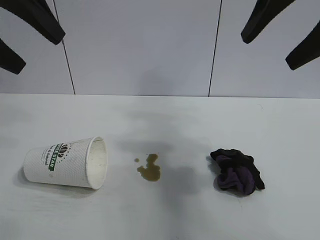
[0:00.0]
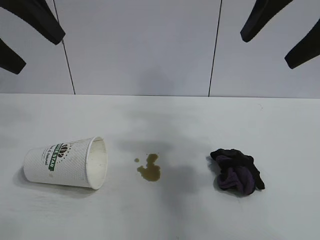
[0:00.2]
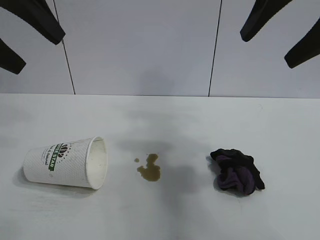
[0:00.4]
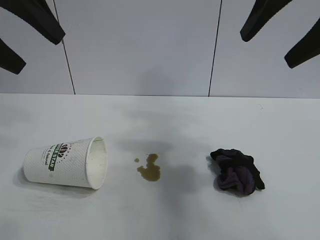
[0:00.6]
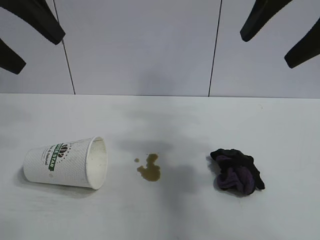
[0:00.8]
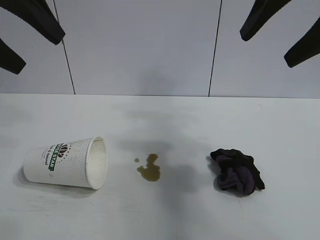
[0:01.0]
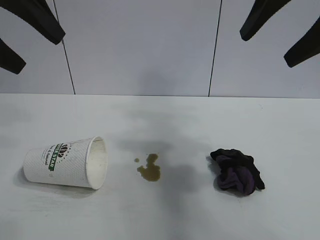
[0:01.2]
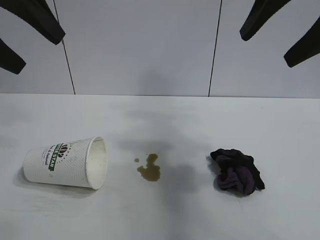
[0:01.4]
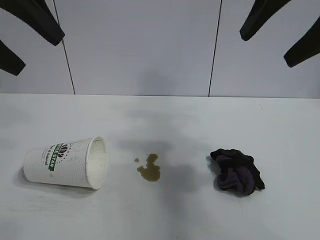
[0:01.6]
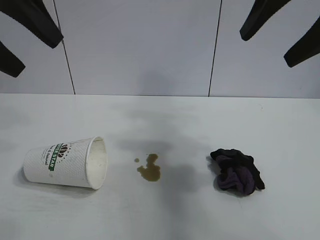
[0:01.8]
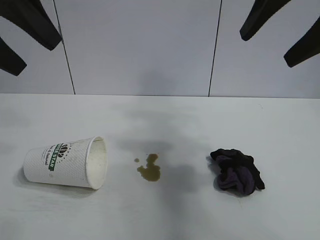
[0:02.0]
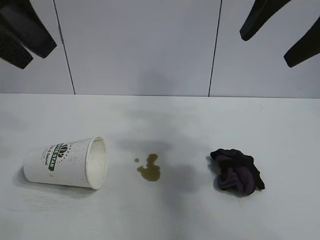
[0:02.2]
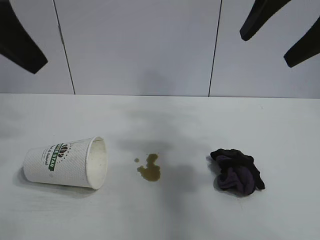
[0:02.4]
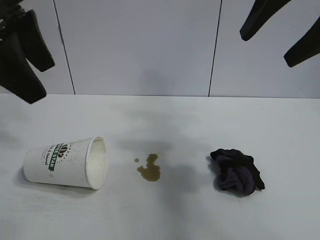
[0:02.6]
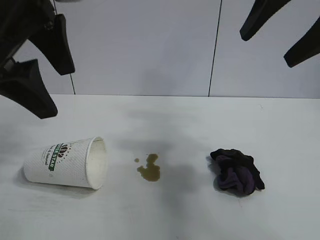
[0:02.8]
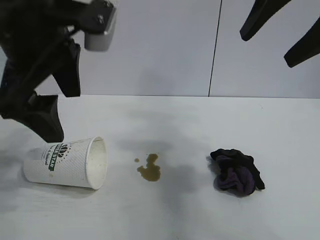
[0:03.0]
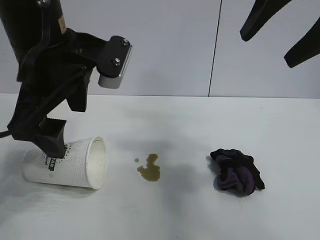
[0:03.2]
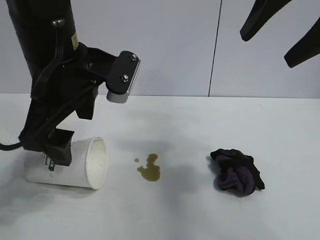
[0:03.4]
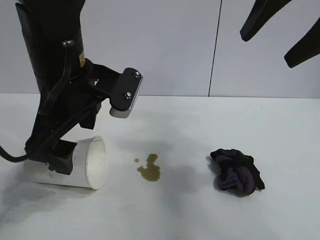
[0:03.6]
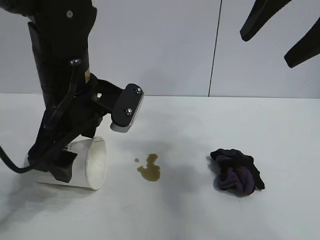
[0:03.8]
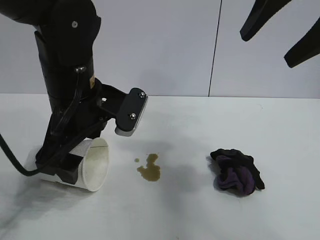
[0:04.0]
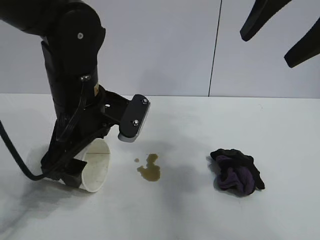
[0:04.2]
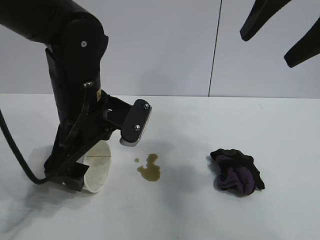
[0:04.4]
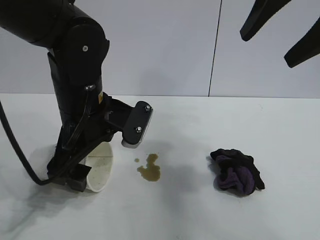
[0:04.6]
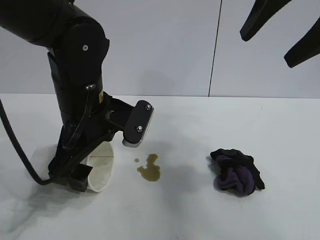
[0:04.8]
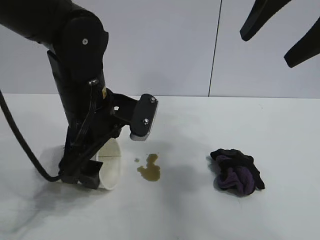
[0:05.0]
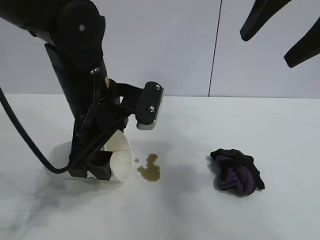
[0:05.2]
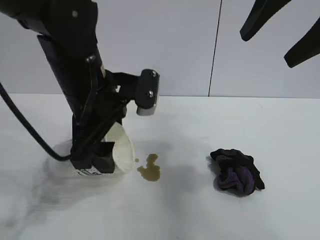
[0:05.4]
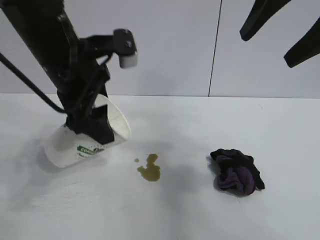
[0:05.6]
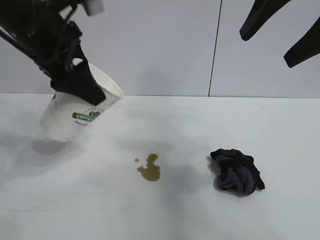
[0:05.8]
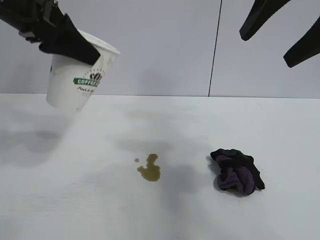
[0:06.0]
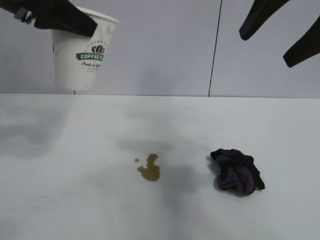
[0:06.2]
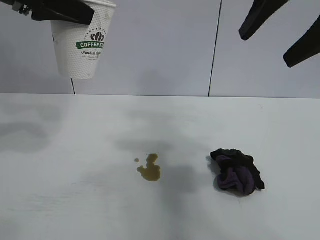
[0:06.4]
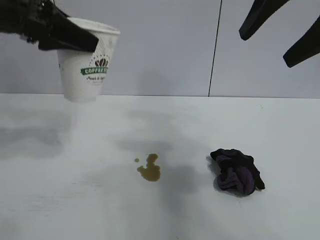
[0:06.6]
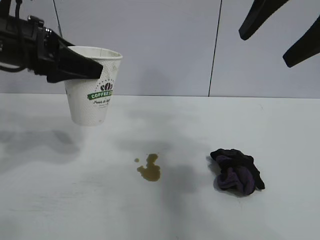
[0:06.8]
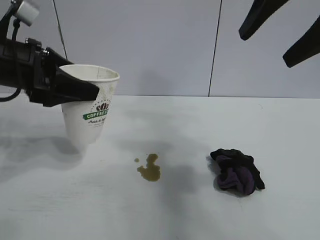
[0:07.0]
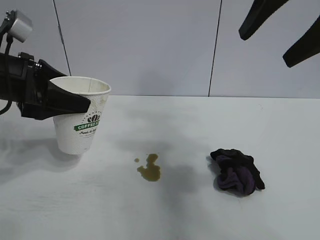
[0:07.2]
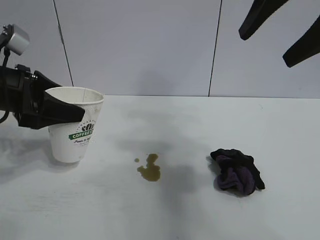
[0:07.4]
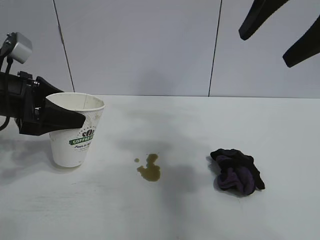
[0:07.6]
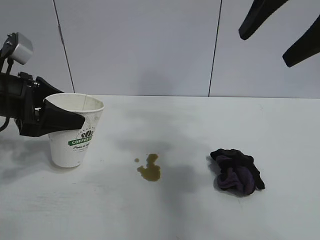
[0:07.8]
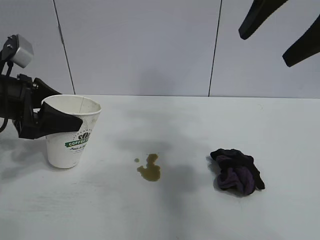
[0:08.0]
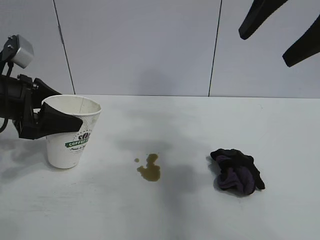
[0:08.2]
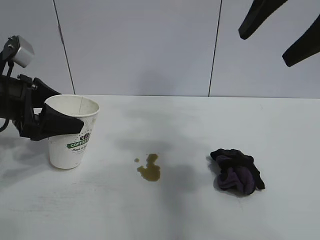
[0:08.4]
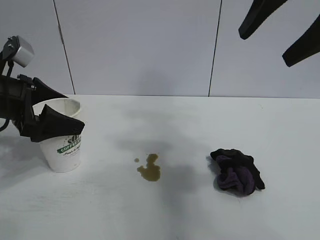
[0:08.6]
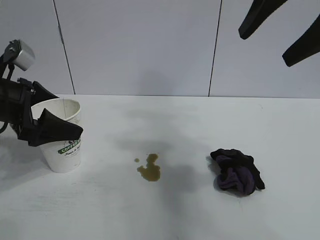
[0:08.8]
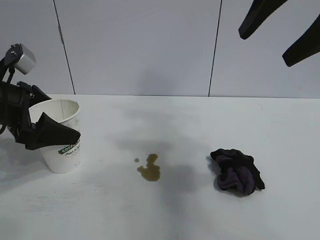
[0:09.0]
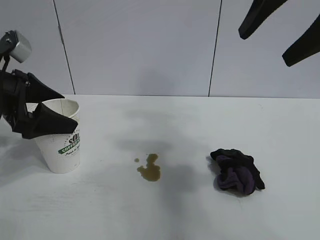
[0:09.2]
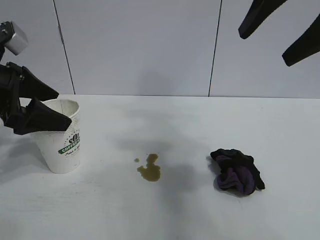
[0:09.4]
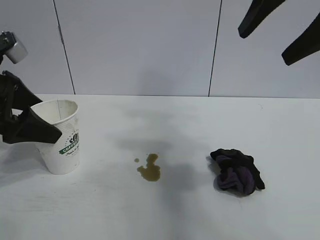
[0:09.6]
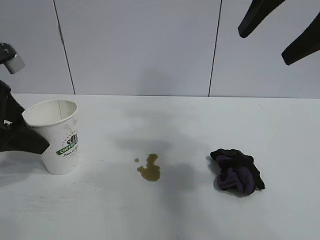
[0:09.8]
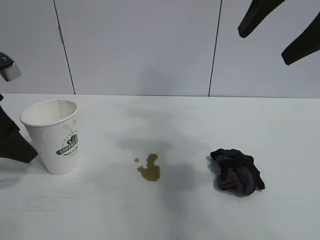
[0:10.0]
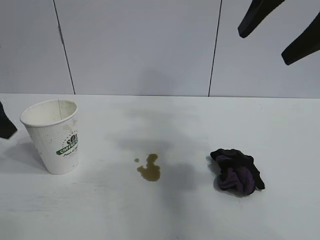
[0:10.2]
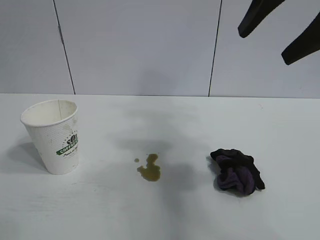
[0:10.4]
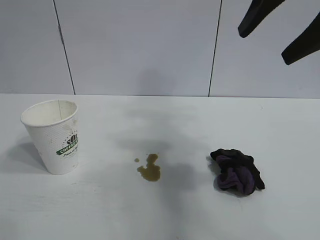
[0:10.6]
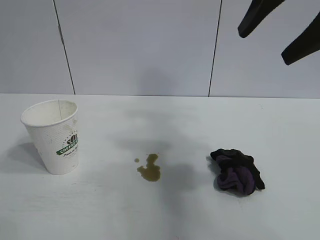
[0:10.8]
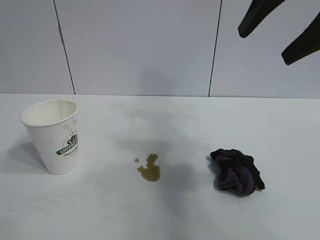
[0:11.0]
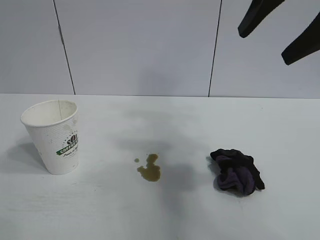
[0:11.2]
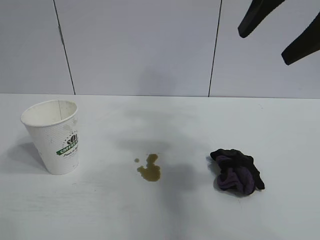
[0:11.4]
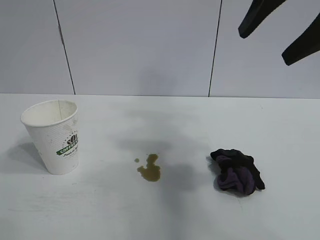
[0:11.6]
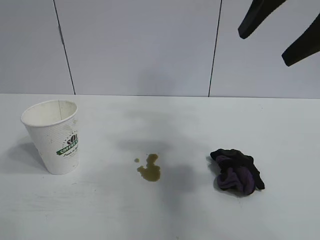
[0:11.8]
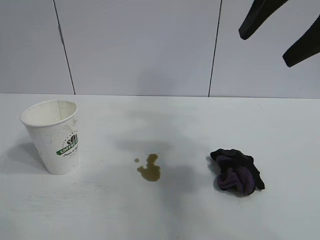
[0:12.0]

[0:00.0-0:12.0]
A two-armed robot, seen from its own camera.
Task of the whole recording: the left gripper pick up the fallen cup and place it upright, the right gripper grasp the black rag and wipe the stain on the table, the right gripper put the black rag back in its original position.
Step, 0:01.6 to 0:04.6: Grasp the paper cup with left gripper.
Step, 0:05.0 to 0:08.6: Stand the paper cup upright with left gripper.

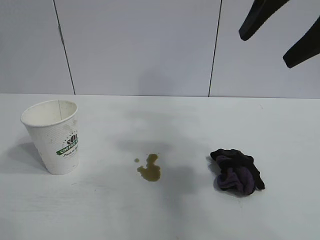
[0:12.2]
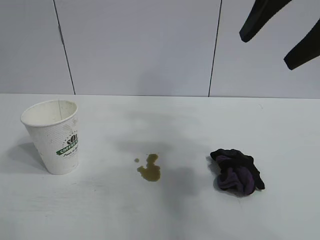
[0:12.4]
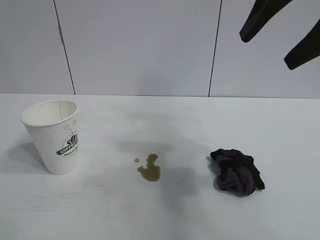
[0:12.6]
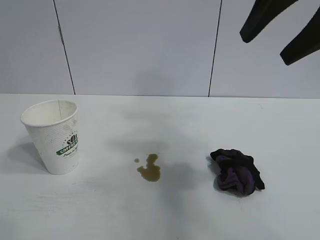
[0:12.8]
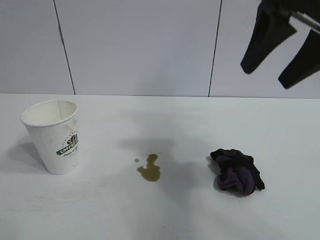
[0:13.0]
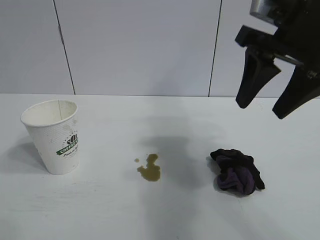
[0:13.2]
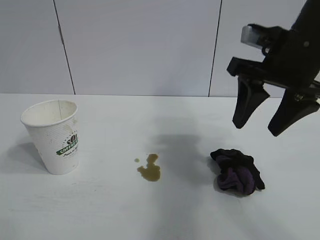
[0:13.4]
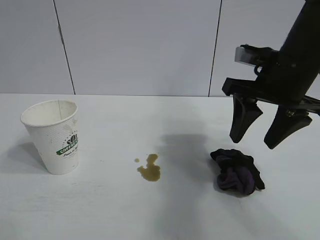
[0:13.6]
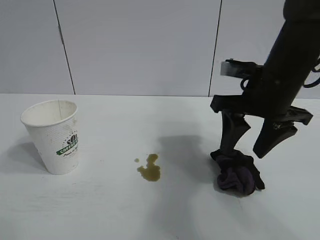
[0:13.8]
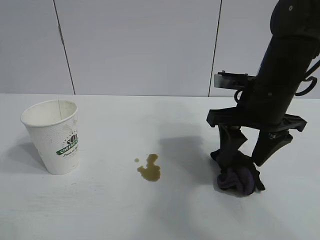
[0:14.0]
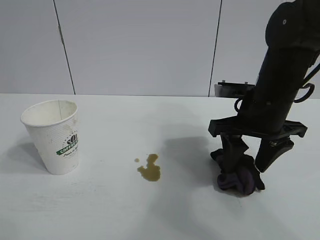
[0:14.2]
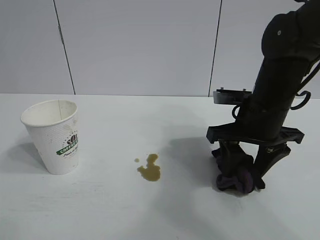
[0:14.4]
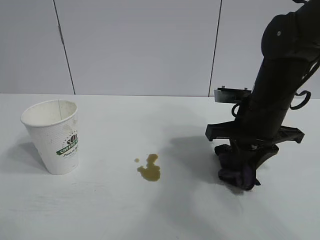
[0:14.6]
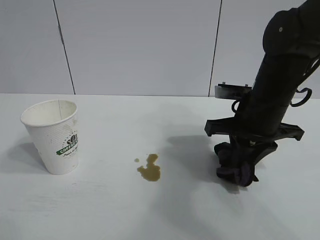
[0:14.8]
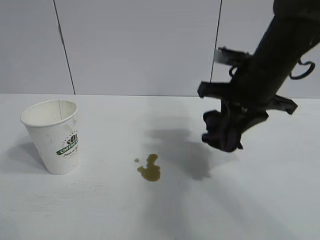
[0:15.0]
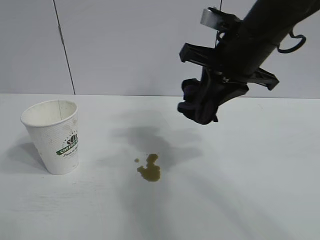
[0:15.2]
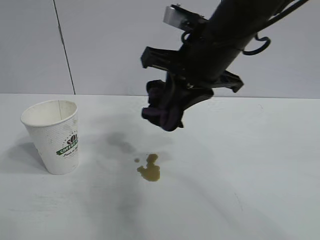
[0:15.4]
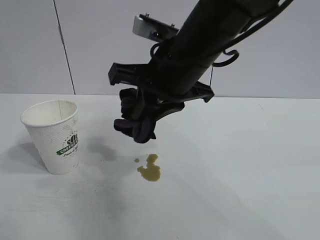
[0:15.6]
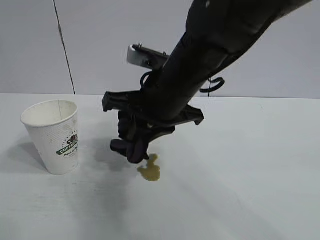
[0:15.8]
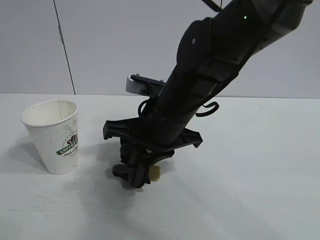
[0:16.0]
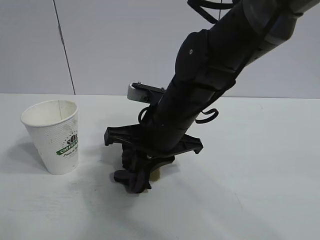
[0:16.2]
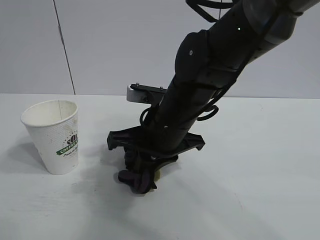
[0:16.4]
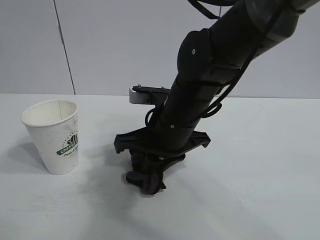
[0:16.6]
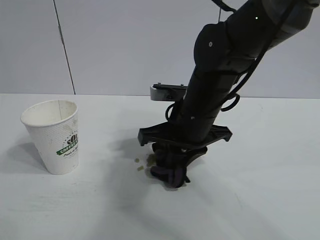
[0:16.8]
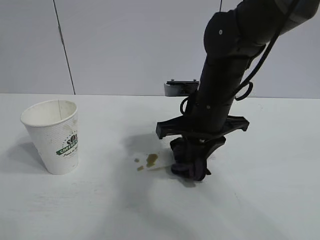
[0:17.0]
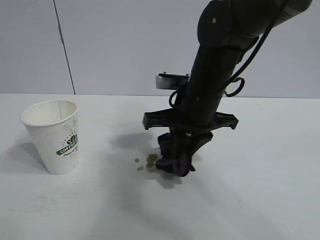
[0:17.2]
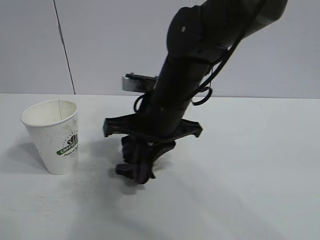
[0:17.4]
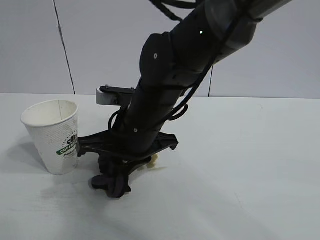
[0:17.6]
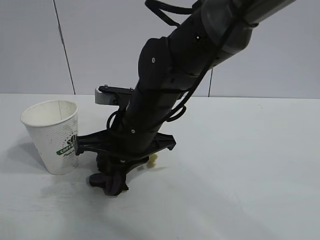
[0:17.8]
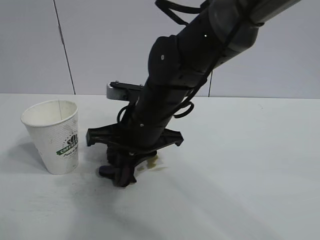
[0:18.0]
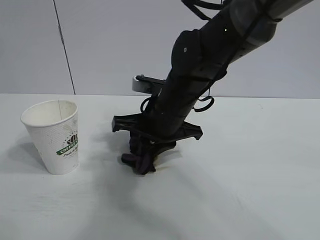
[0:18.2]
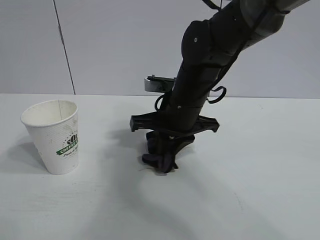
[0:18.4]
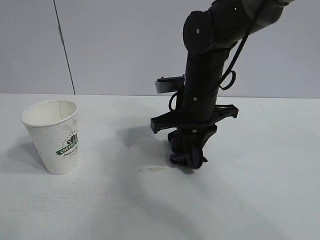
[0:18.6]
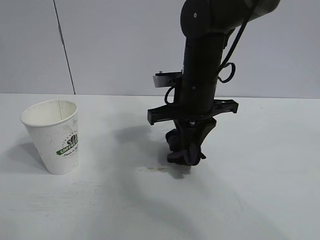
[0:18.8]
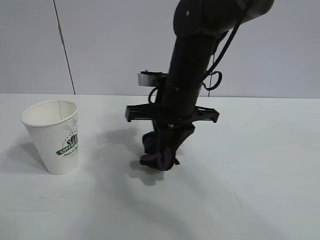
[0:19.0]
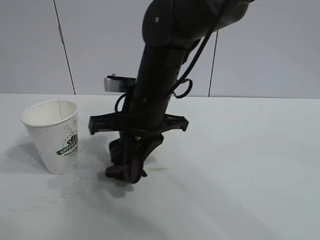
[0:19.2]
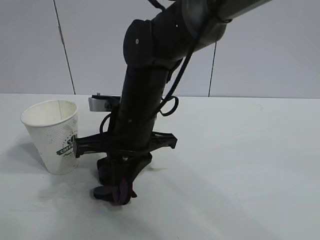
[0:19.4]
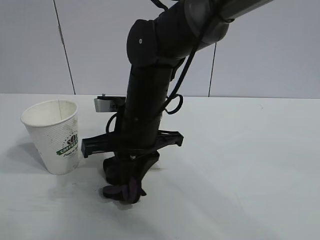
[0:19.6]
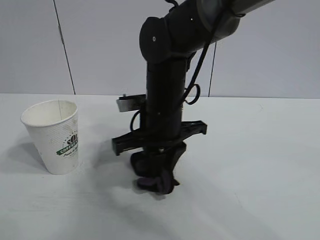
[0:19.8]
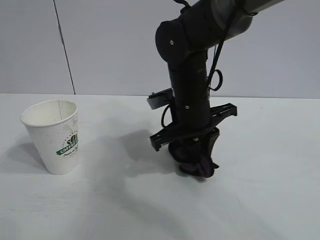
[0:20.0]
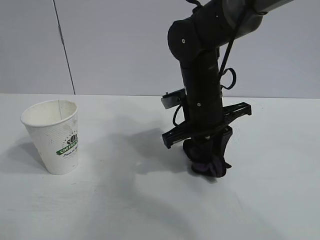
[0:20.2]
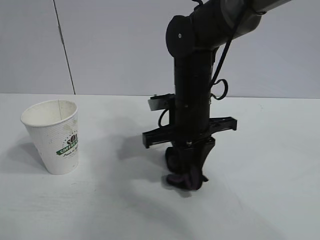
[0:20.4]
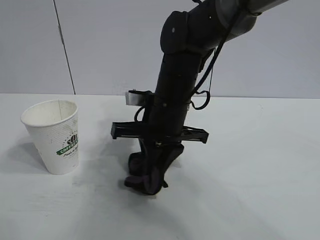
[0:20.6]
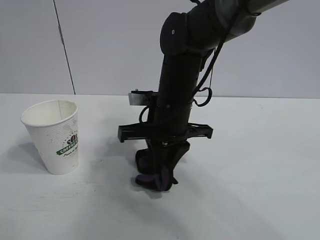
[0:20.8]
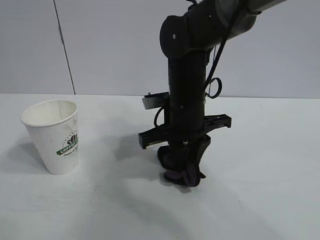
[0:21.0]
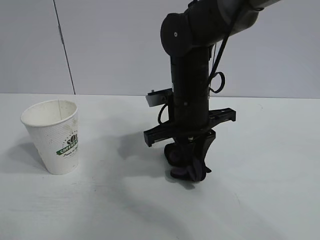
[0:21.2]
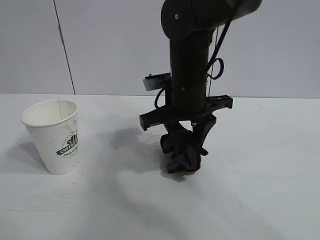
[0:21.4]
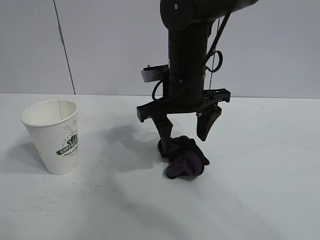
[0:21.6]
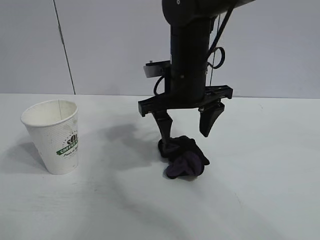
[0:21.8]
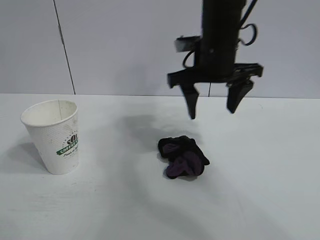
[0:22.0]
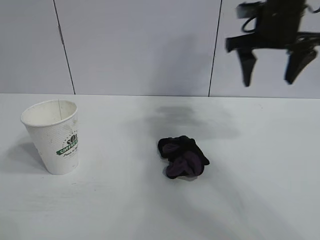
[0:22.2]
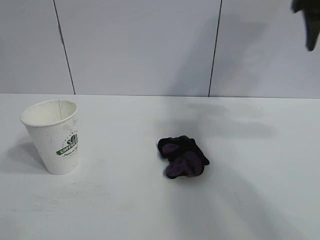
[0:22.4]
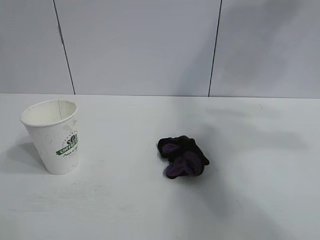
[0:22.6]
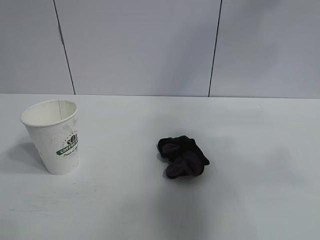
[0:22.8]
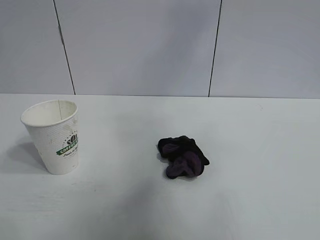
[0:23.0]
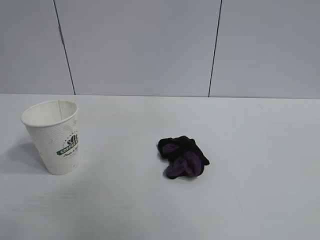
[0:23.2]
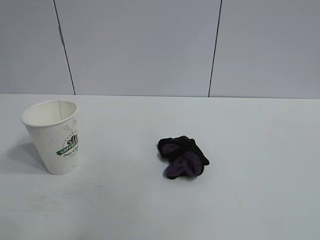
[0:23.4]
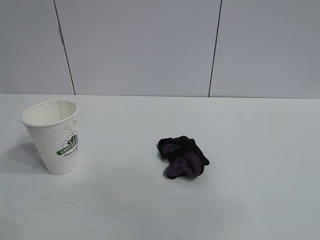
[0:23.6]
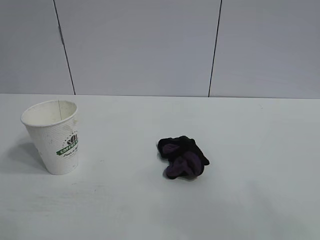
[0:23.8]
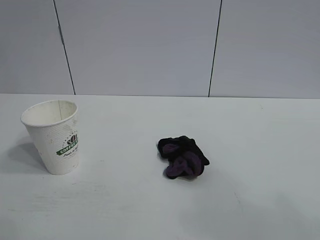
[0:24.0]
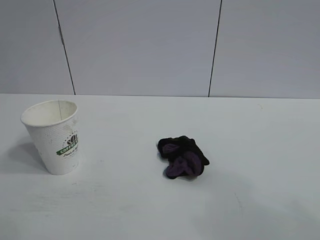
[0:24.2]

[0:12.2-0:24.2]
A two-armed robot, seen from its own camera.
Task of the whole recording: the left gripper pick up the fallen cup and place it upright, the right gripper grasp the black rag and wipe the stain on the table, the right gripper put the black rag back in its original position.
Step, 0:12.2 to 0:14.6: Grasp the rag with right gripper.
Step, 0:14.8 to 0:21.0: Wipe the stains off the table with the rag with right gripper.
Step, 0:21.2 to 0:21.4: Place the rag on the table with right gripper.
